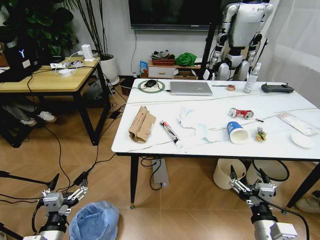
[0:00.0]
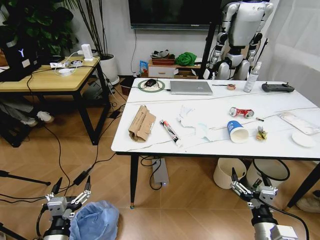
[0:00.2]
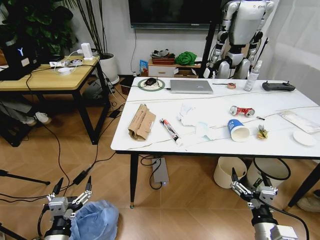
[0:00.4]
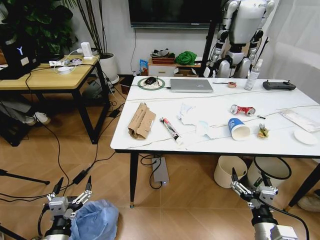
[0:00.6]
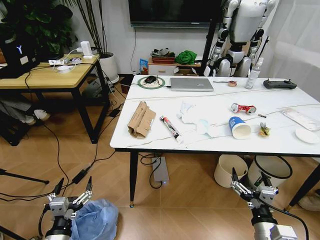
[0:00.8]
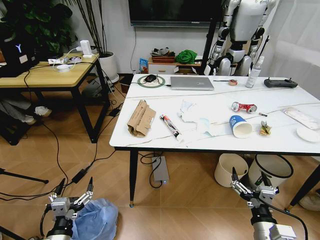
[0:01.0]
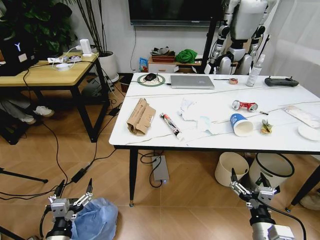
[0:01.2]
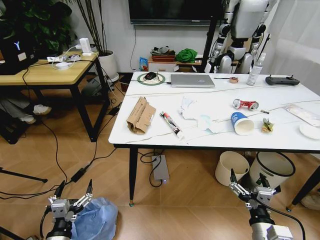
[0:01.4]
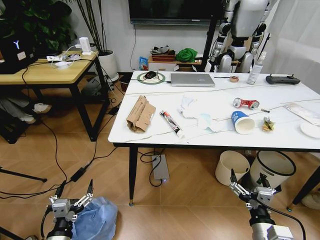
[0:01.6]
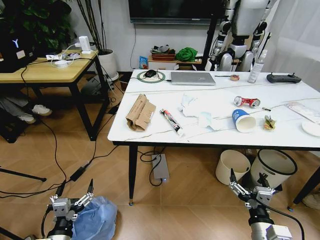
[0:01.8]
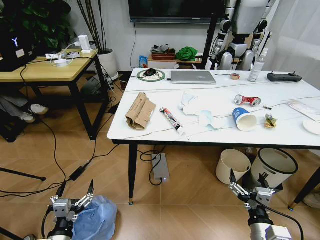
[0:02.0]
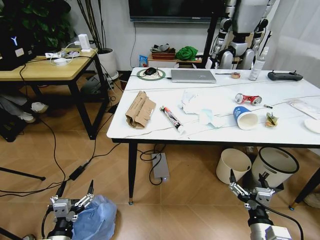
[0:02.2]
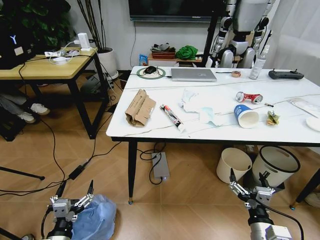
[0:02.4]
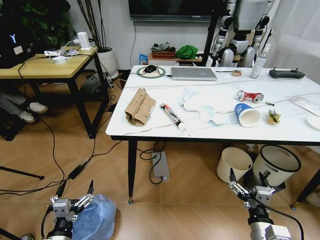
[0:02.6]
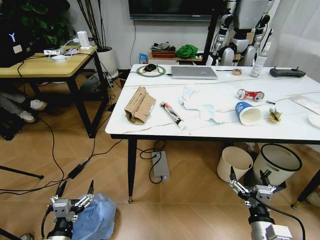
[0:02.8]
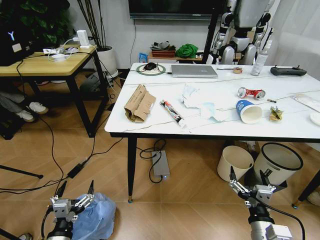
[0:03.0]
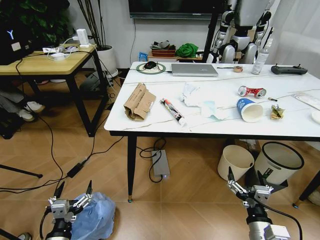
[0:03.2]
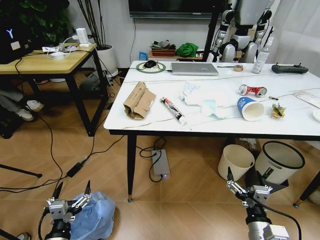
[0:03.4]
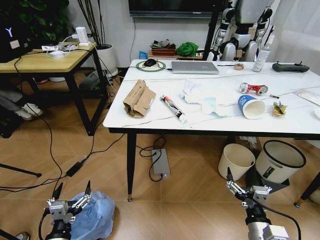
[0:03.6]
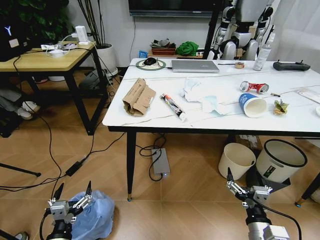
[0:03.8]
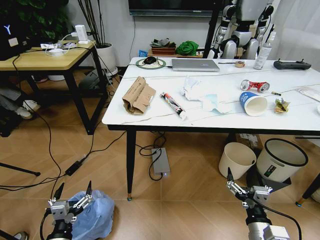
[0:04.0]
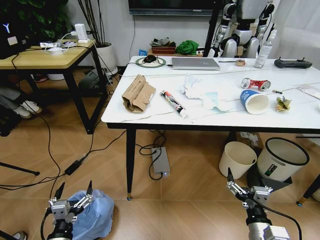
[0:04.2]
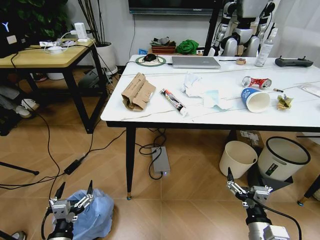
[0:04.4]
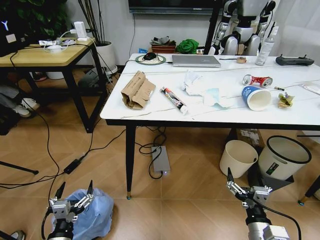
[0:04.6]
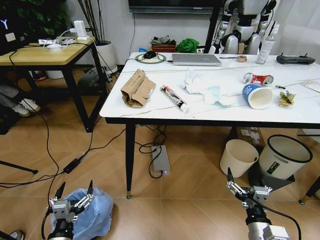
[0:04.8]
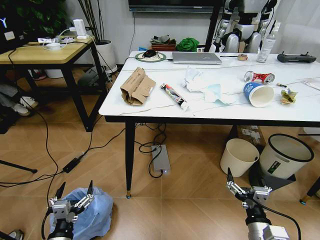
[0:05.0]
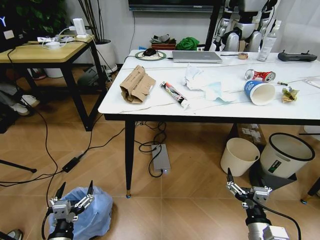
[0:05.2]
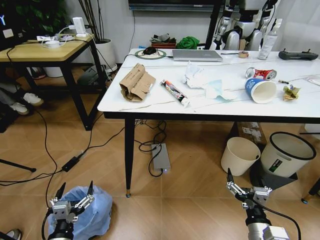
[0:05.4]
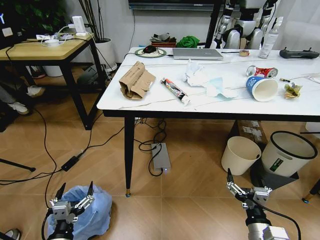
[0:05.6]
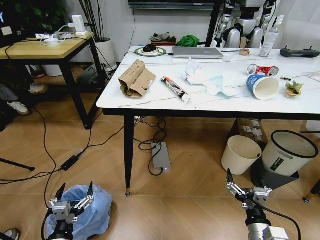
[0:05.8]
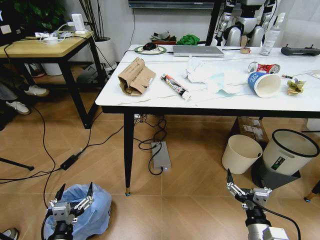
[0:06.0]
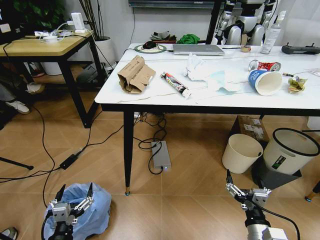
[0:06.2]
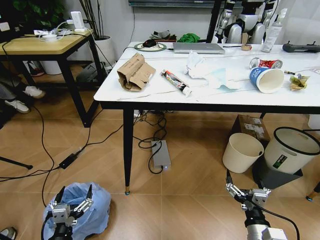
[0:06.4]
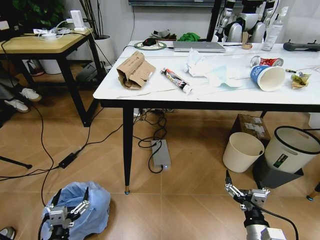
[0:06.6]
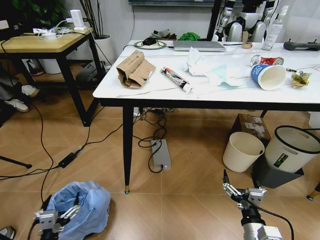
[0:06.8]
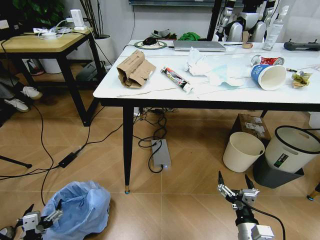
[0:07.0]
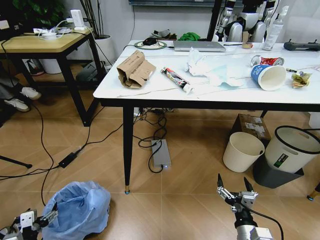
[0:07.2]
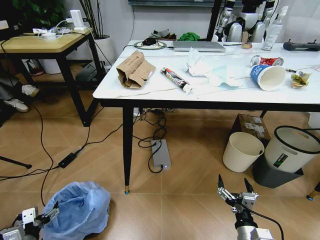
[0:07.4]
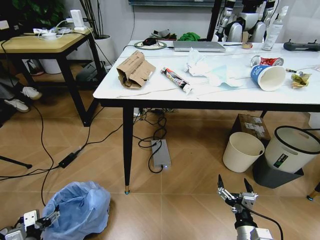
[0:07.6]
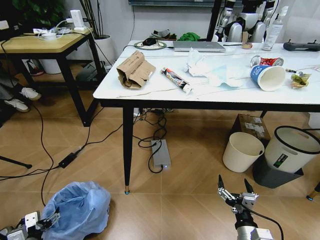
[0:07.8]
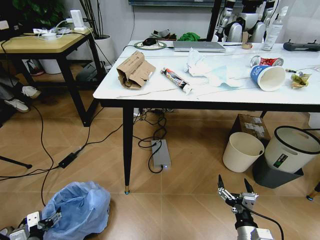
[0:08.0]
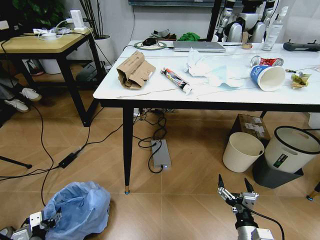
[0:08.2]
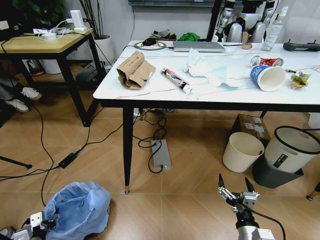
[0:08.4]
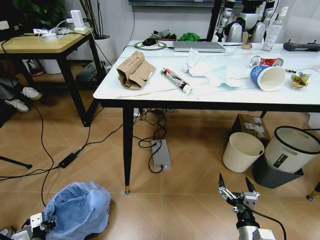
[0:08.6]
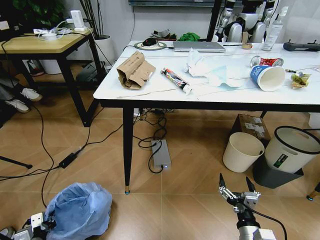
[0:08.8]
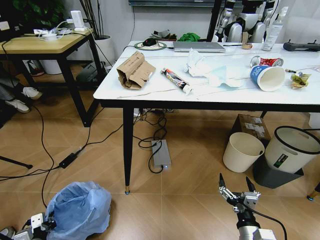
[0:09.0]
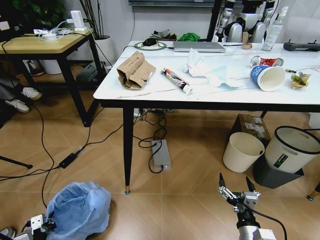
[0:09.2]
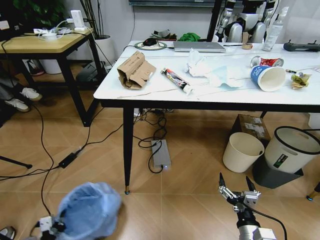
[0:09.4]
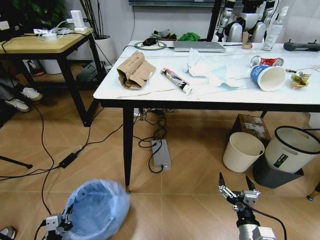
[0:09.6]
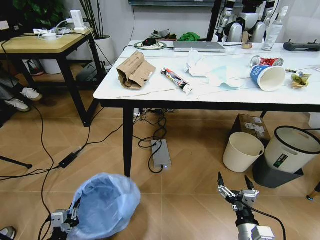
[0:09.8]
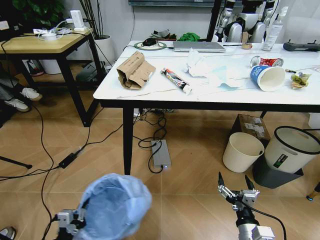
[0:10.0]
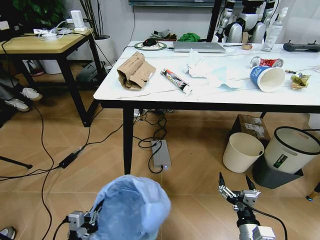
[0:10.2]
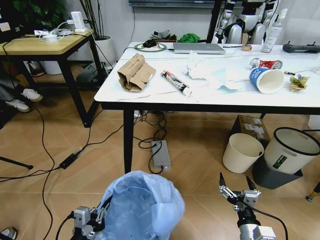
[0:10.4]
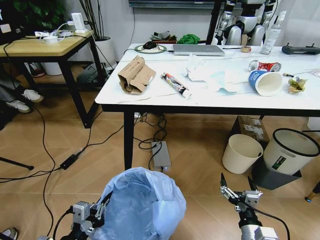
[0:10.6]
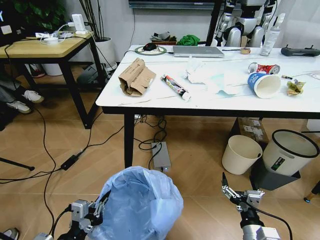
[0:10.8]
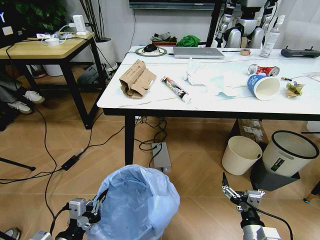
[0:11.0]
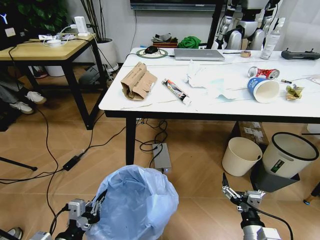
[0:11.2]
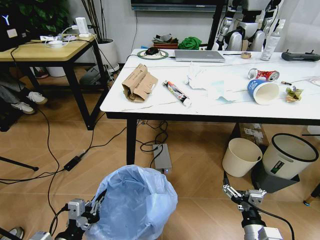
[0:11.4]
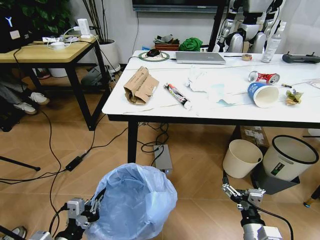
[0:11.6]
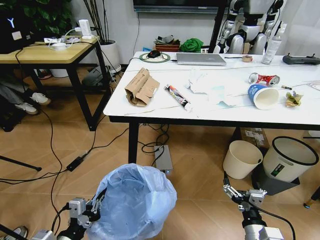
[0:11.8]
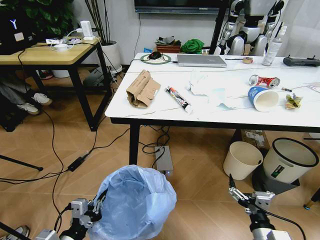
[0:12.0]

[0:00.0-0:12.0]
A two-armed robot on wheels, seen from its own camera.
Task of the whole recording: Pick up the trash bin and place the trash from the table into it.
0:06.0 to 0:07.6: The left gripper heads to the left, covering some 15 cm.
0:07.6 to 0:09.0: The left gripper closes.
0:09.0 to 0:10.4: The left gripper heads to the right and upward, covering roughly 25 cm.

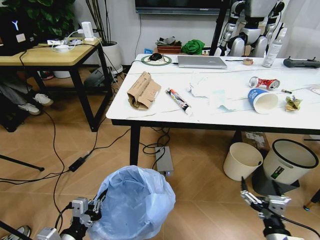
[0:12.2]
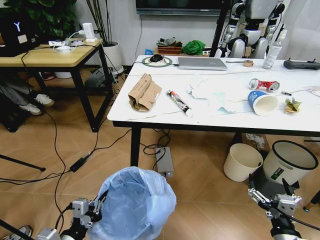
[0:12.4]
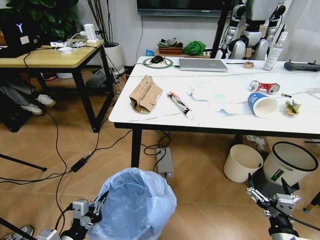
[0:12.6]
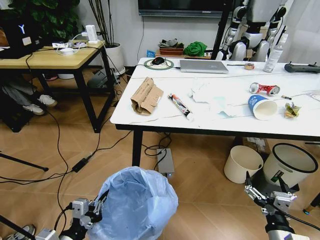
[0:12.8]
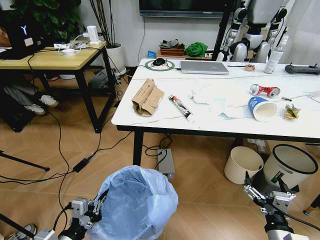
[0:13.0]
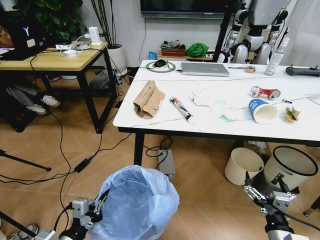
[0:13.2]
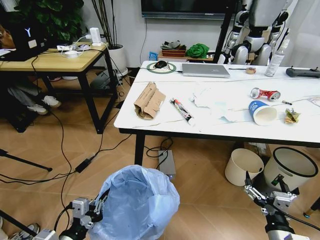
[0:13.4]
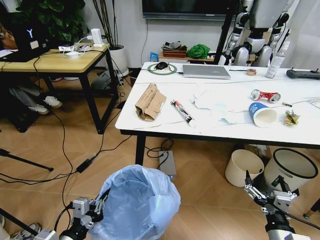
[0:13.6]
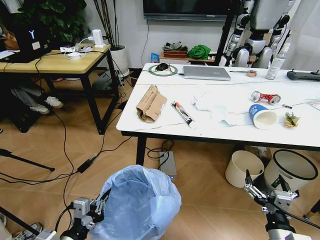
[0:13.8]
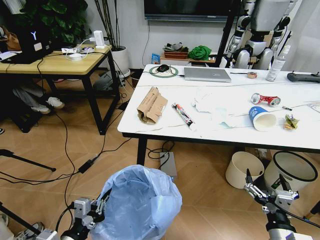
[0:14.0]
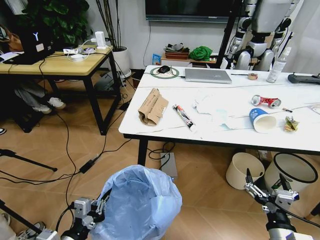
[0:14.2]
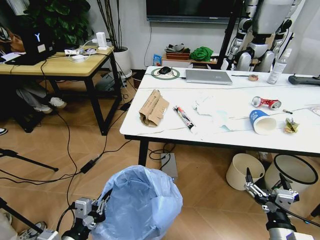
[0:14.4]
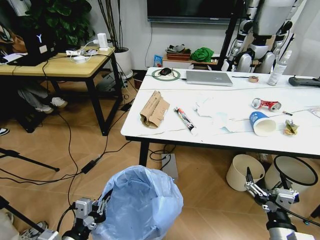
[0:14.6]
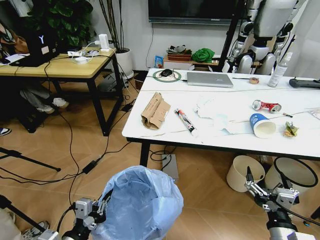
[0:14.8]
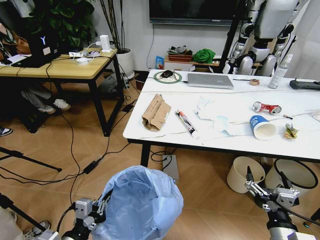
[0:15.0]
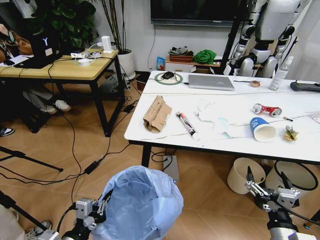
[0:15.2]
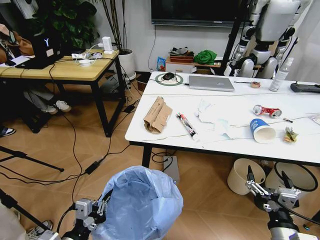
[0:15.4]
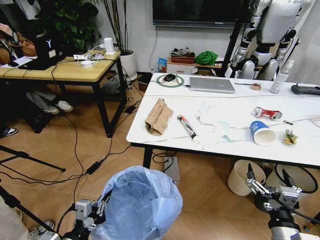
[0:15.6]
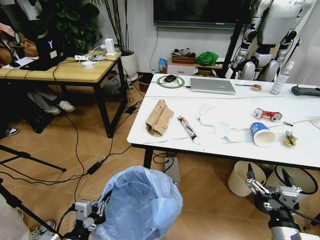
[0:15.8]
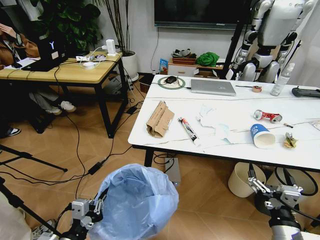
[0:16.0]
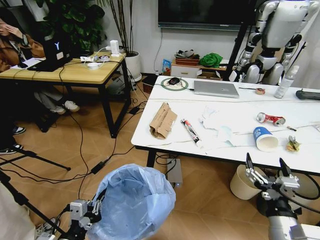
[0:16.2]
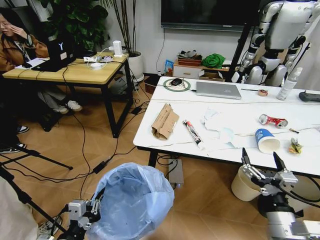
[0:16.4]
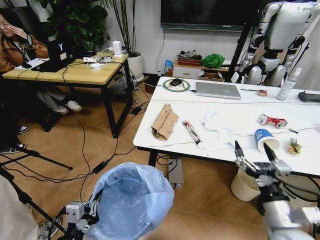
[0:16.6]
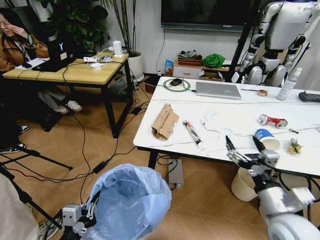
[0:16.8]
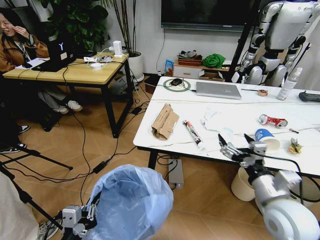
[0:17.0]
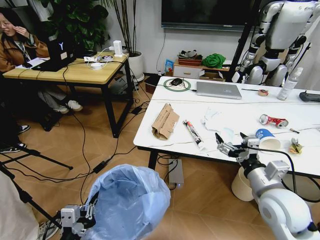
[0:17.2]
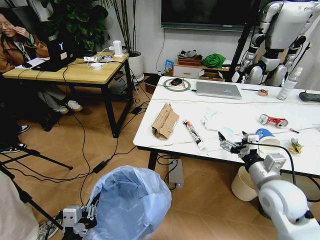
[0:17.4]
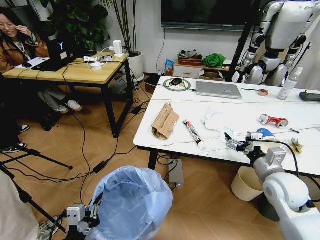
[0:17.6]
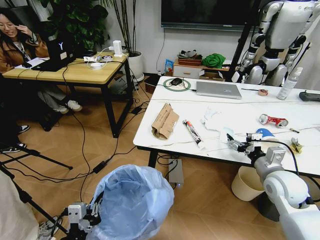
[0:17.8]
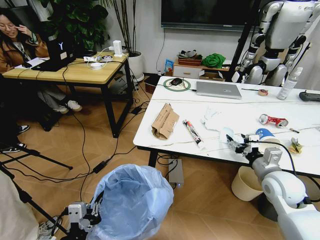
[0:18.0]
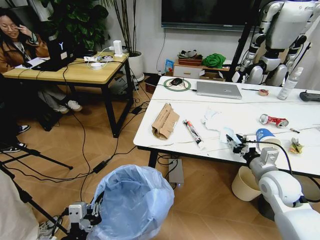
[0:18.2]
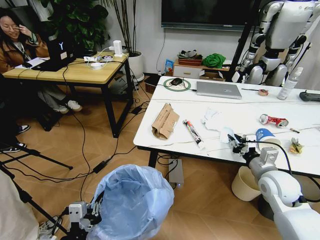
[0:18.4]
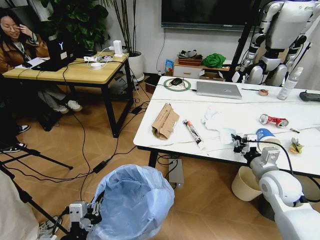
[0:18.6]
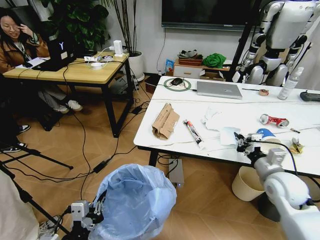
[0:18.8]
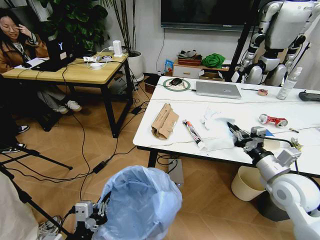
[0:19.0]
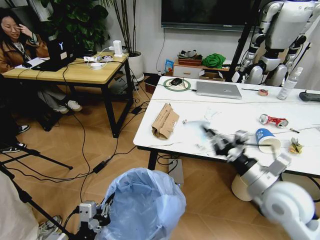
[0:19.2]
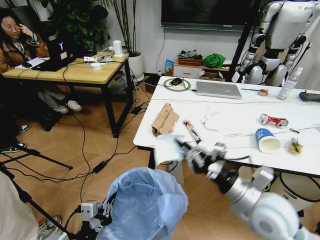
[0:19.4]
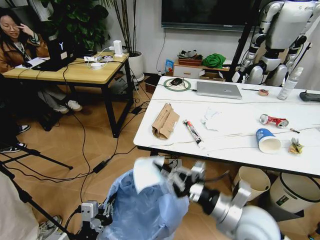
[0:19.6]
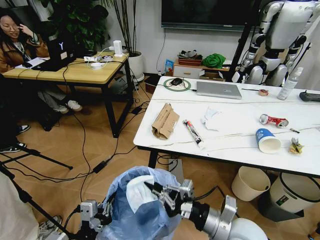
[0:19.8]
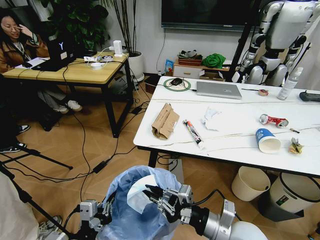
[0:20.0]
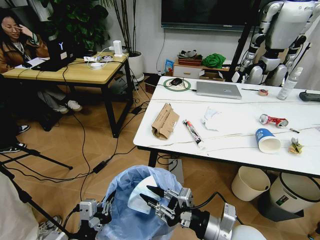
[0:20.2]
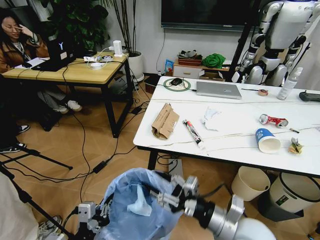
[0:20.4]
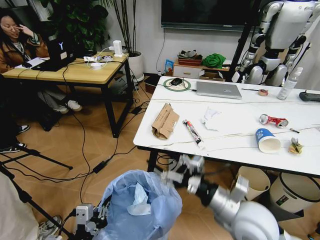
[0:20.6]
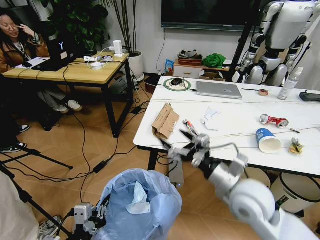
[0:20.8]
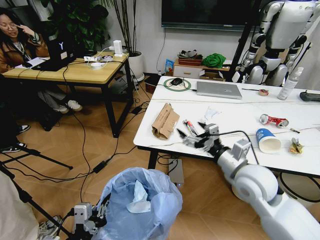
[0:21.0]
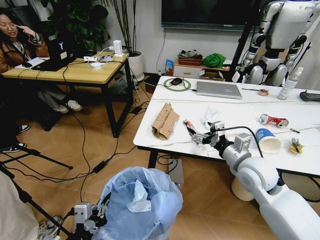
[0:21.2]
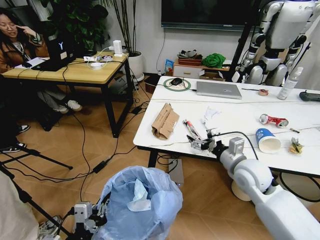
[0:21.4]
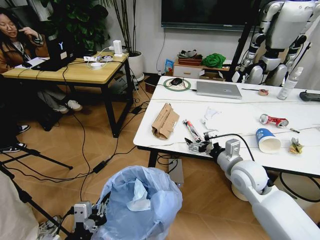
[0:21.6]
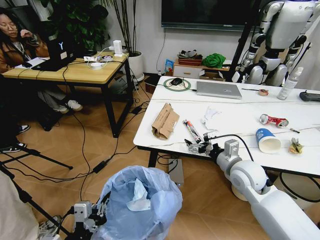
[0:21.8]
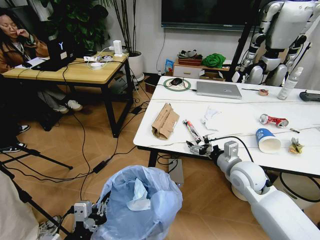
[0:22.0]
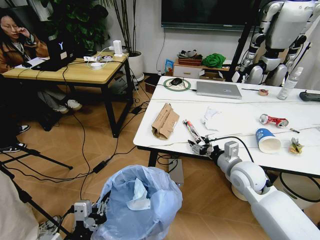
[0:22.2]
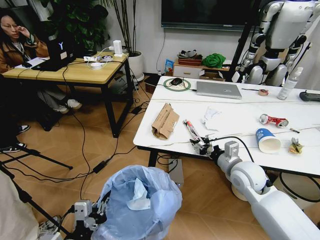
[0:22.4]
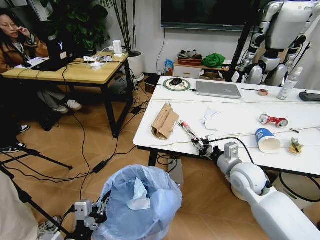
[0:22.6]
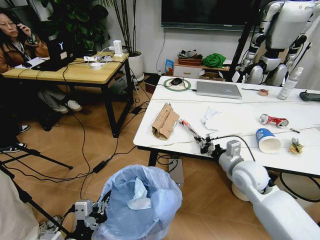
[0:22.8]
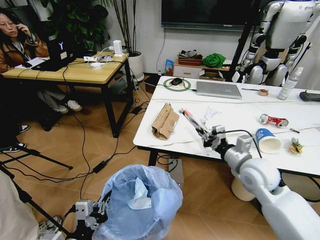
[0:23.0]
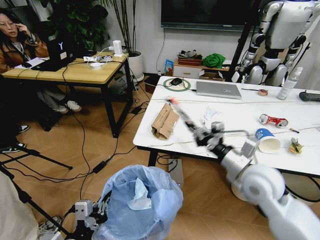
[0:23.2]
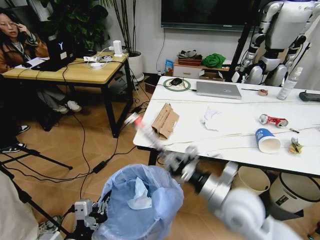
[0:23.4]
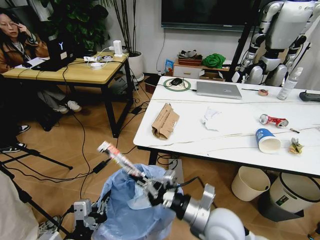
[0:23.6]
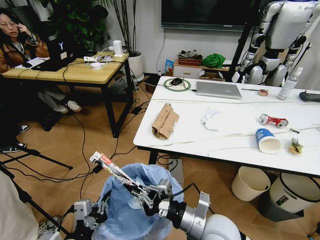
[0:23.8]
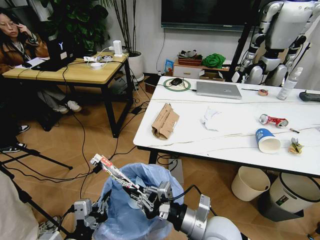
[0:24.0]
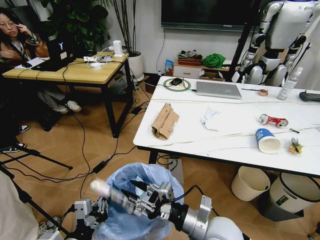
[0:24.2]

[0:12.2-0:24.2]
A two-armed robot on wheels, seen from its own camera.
Task of the whole recording: Pick up the trash bin and place the trash from the table into it.
0:15.2 to 0:16.6: The right gripper goes some 5 cm forward.
0:16.6 to 0:18.2: The right gripper heads forward, covering roughly 15 cm, and closes up.
0:18.2 to 0:19.8: The right gripper goes approximately 20 cm to the left and backward, and closes its fingers.
0:19.8 to 0:21.2: The right gripper goes approximately 20 cm forward, to the right and upward, and opens its fingers.
0:21.2 to 0:22.6: The right gripper heads downward, covering some 5 cm, and closes up.
0:22.6 to 0:24.2: The right gripper is displaced backward and to the left by roughly 20 cm.
